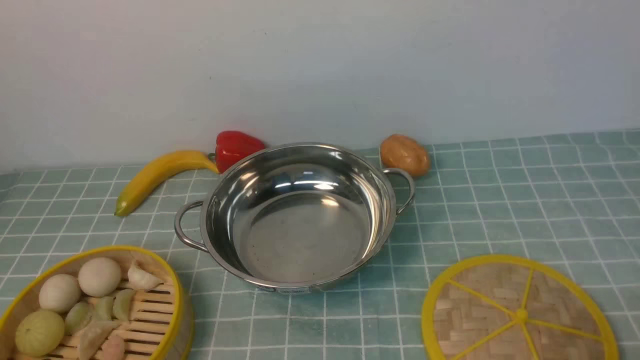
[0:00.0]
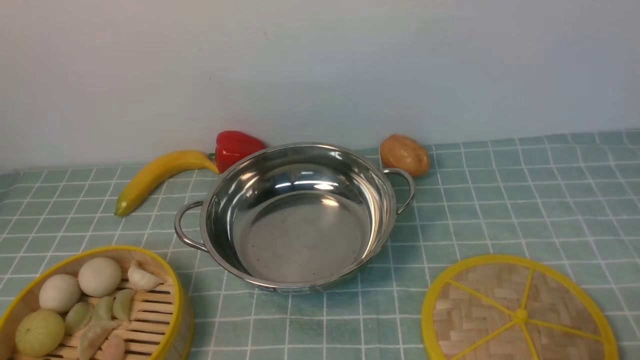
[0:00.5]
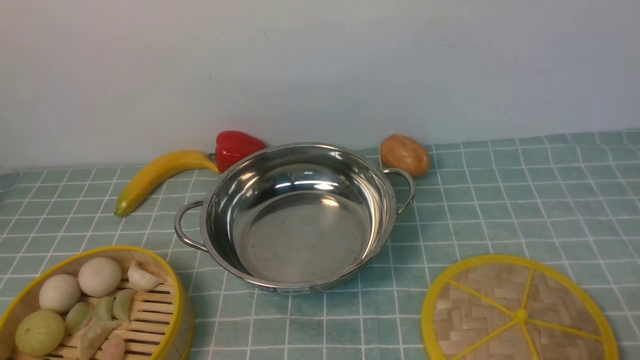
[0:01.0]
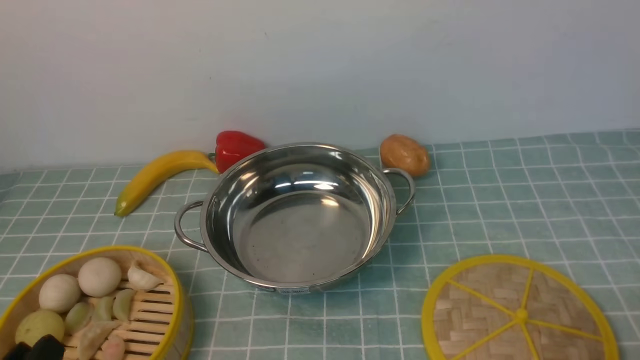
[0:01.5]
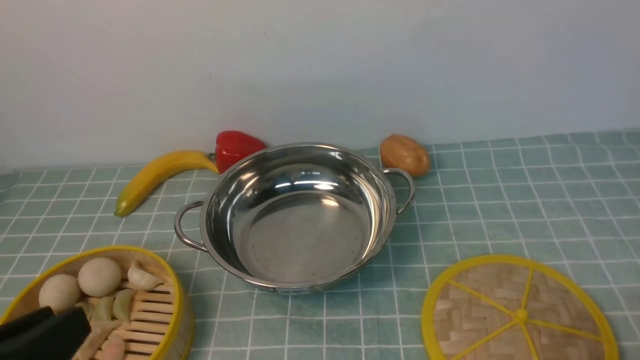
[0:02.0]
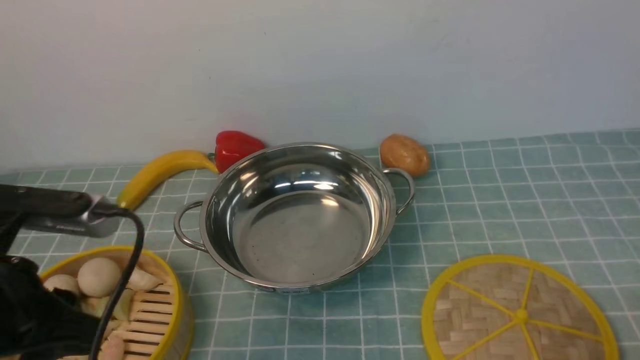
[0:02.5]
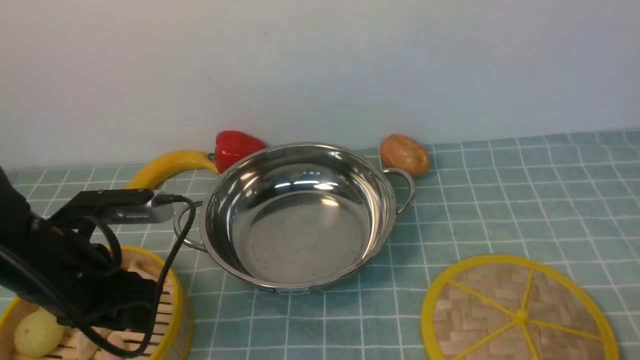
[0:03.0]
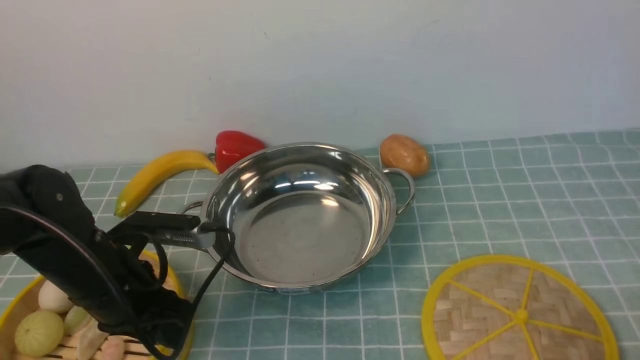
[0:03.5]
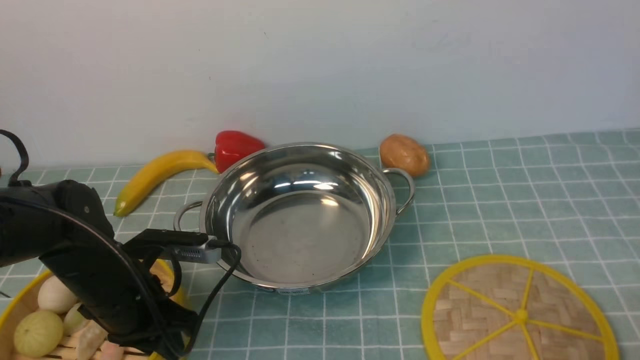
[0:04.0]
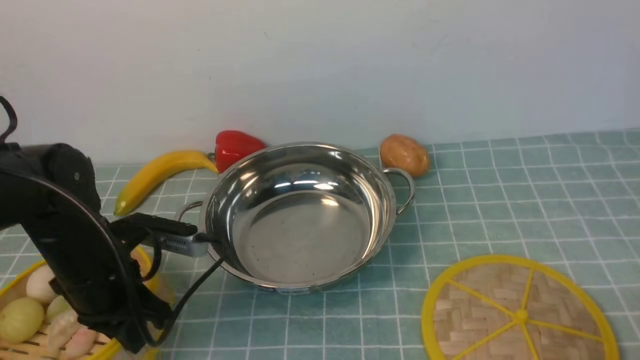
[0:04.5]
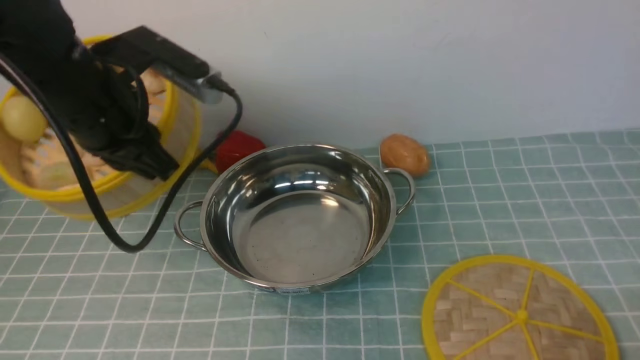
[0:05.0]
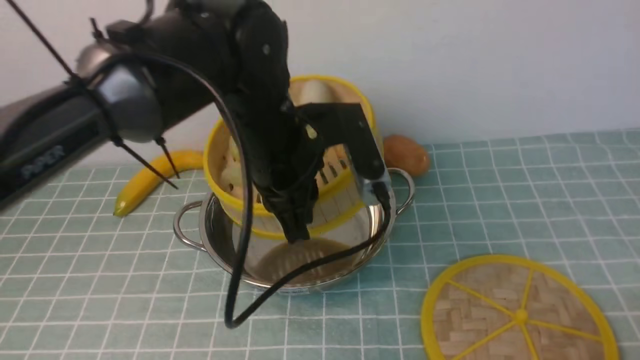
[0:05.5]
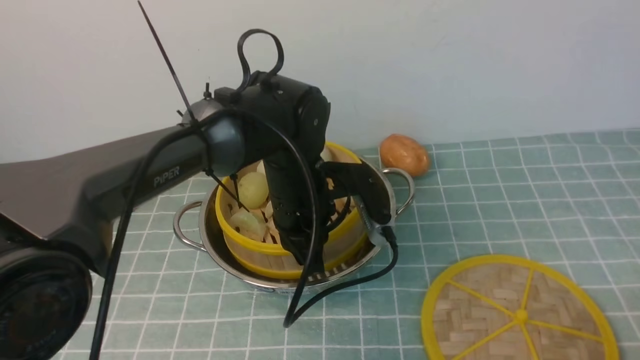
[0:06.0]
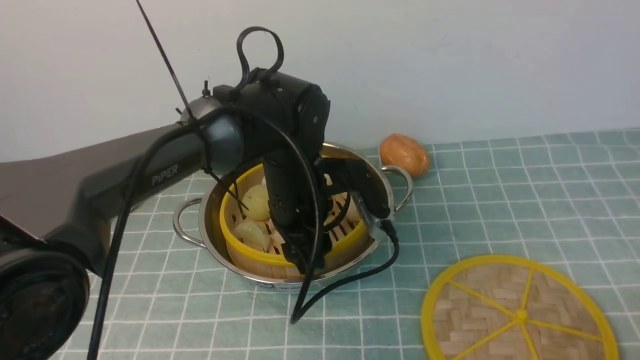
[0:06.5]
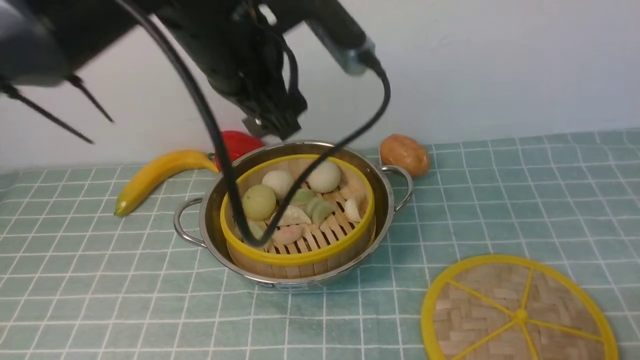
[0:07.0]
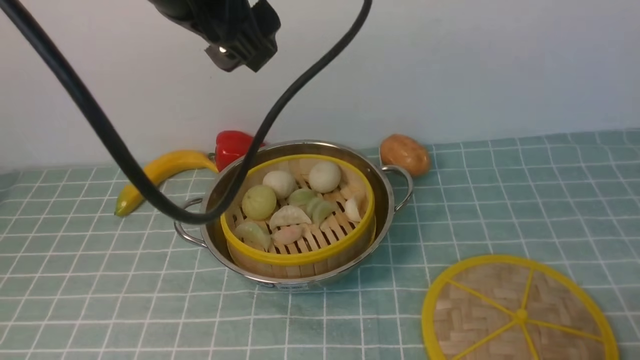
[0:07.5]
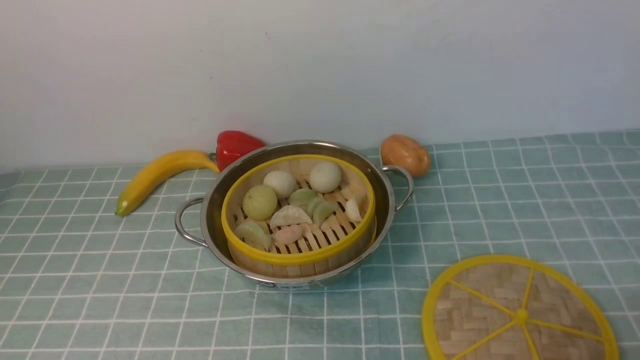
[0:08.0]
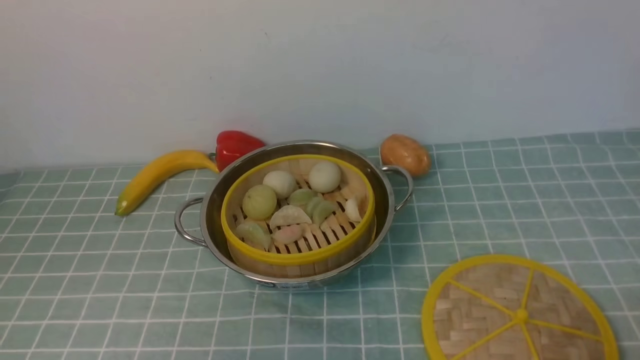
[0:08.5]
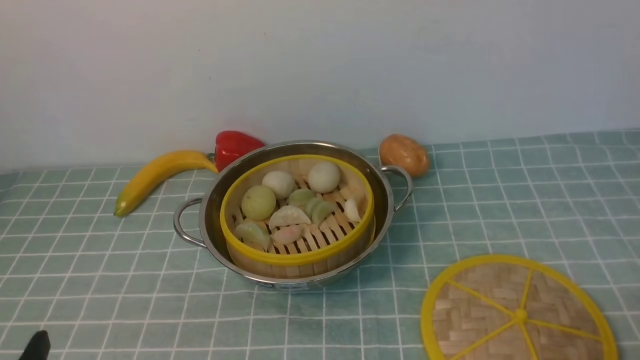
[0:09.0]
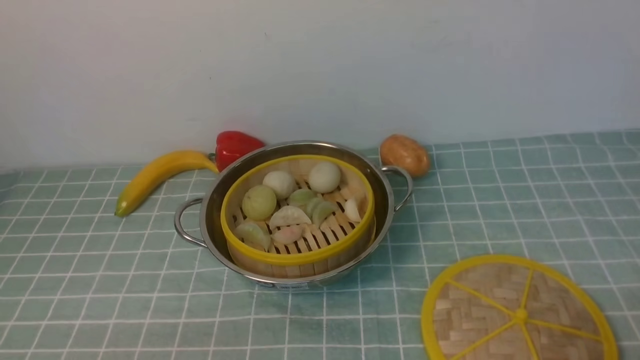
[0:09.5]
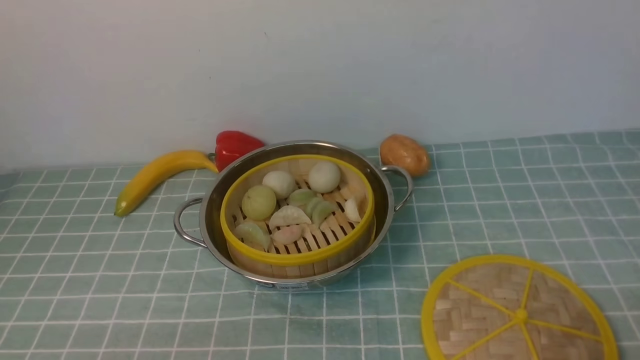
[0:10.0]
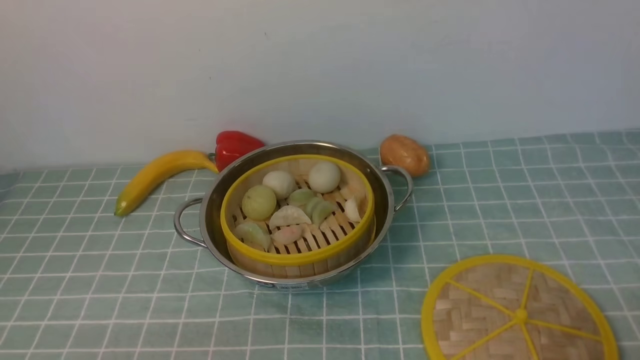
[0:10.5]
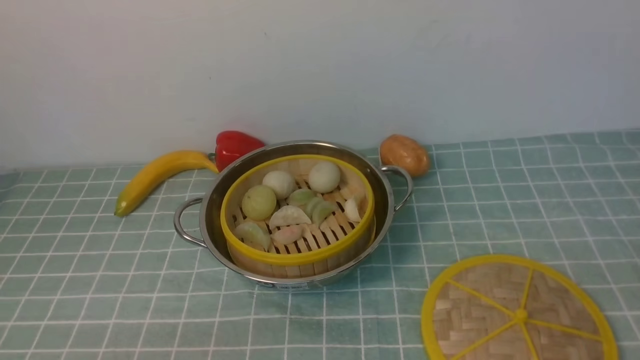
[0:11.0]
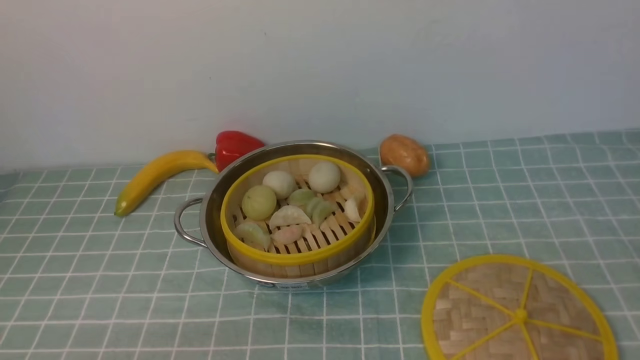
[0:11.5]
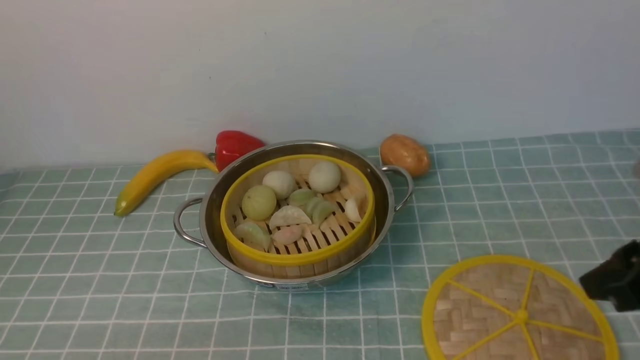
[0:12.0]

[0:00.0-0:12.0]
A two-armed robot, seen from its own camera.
Task of the whole recording: place the steamer in the pot on the blue tablecloth, and put the lid on the steamer.
Step, 0:00.0 to 0:04.5: use the left arm to lift the steamer closest to it.
Step, 0:05.0 to 0:06.5: use the left arm to put the steamer into the iron steamer pot in the middle.
0:00.0 to 0:02.0: The left gripper shifts approximately 10 cm upward.
0:02.0 to 0:04.0: The left gripper moves forward and downward, some 25 cm.
0:04.0 to 0:06.0: The left gripper goes approximately 20 cm to the right and forward.
0:06.0 to 0:08.0: The left gripper travels upward, backward and to the left by about 40 cm, and opens.
0:08.0 to 0:10.0: The left gripper heads downward, covering about 35 cm.
0:10.0 to 0:12.0: The right gripper moves forward and upward, some 20 cm.

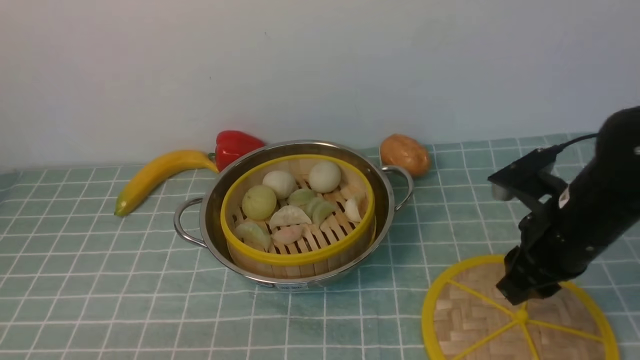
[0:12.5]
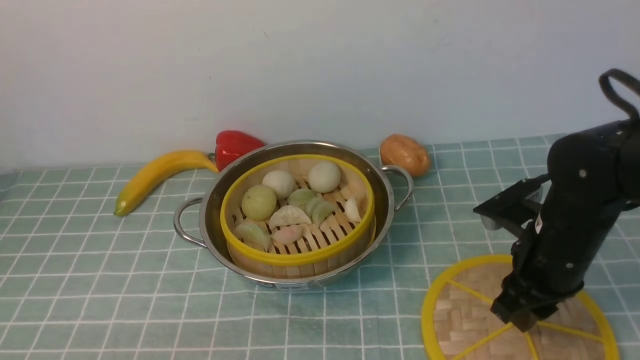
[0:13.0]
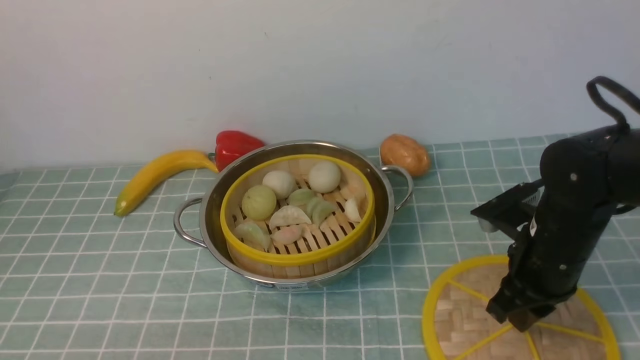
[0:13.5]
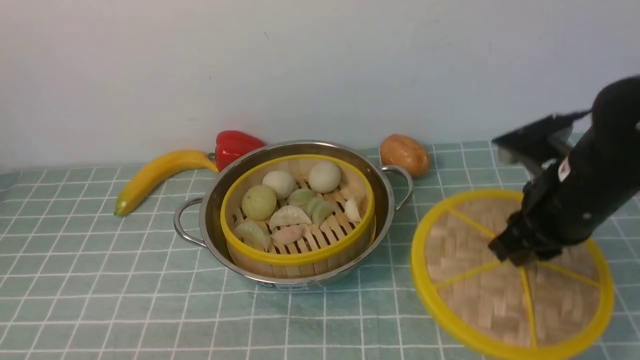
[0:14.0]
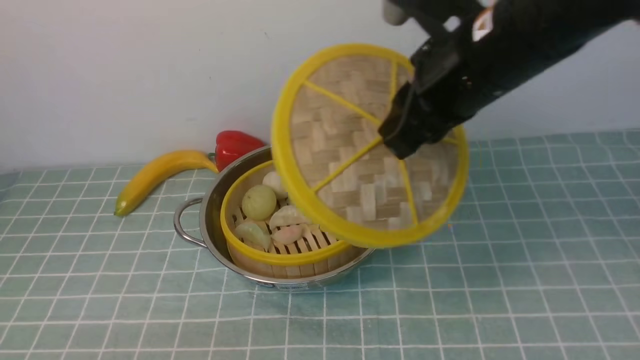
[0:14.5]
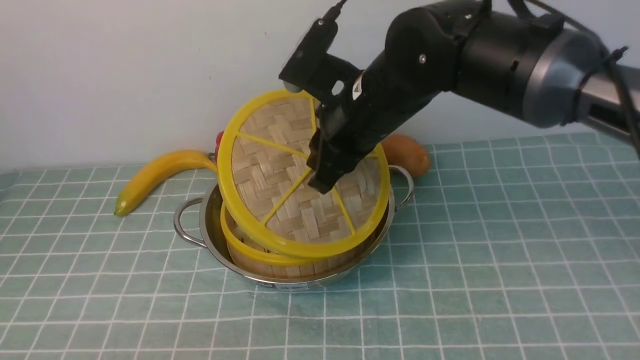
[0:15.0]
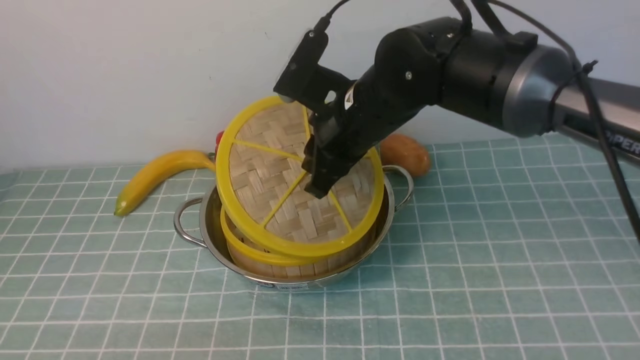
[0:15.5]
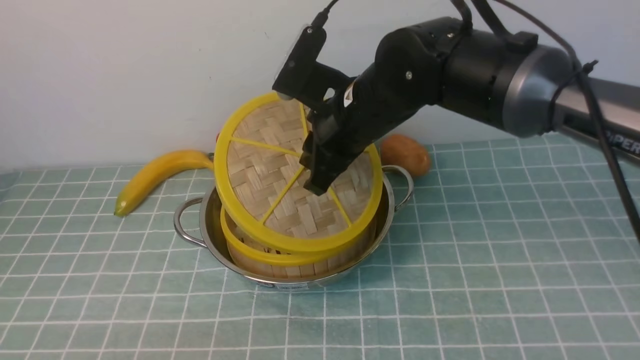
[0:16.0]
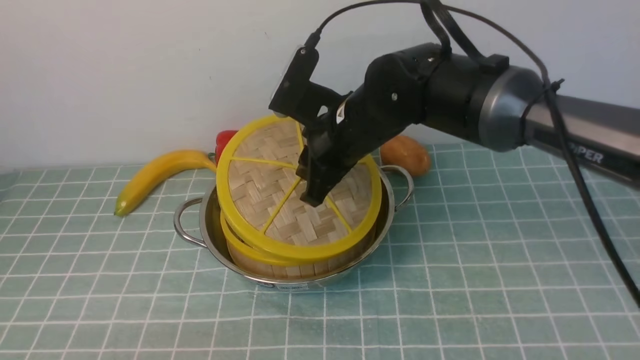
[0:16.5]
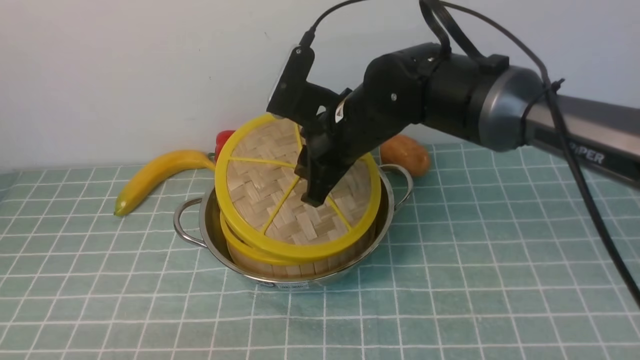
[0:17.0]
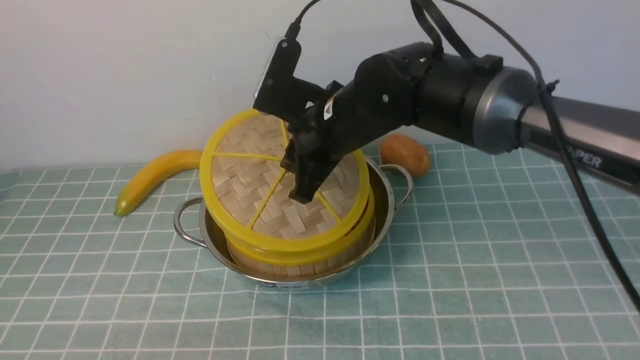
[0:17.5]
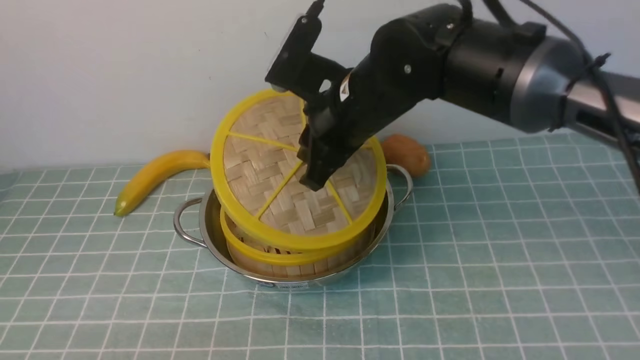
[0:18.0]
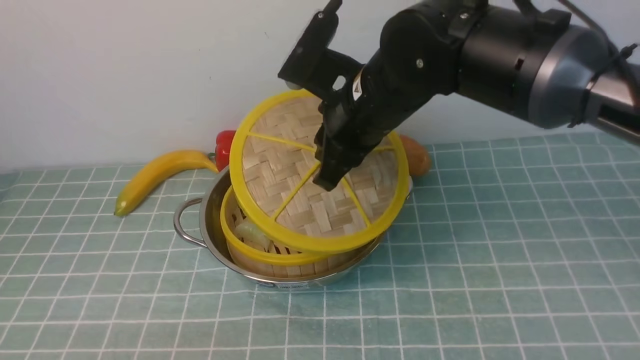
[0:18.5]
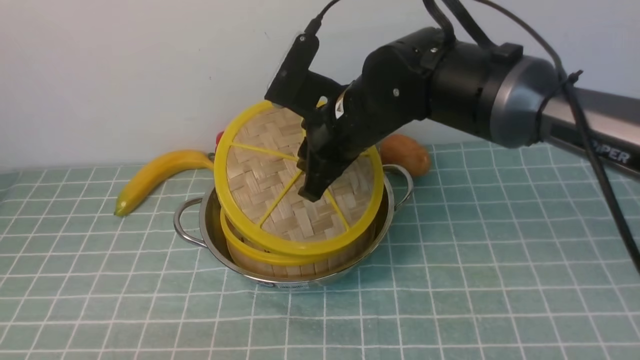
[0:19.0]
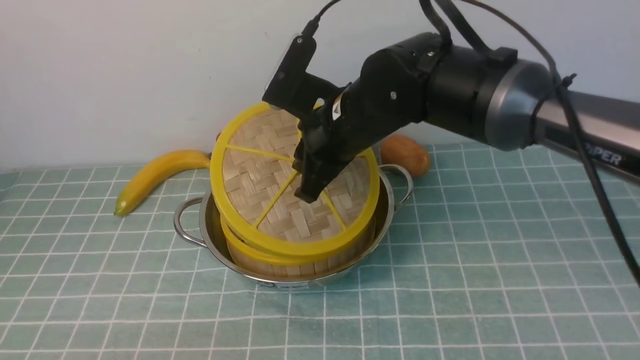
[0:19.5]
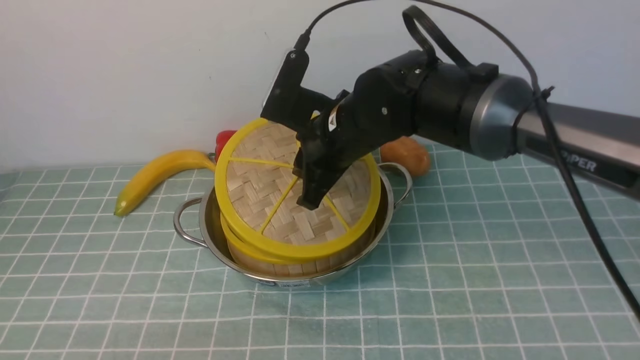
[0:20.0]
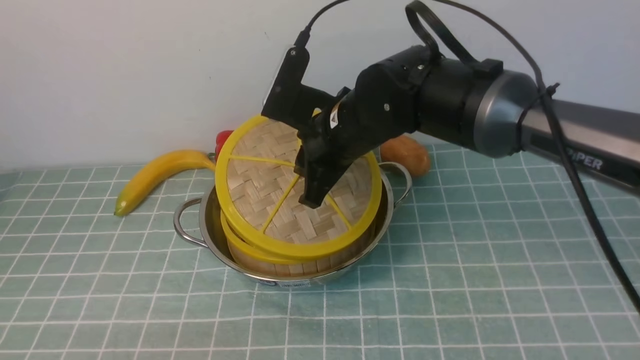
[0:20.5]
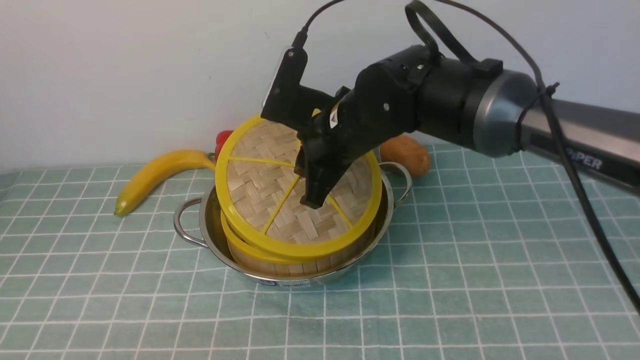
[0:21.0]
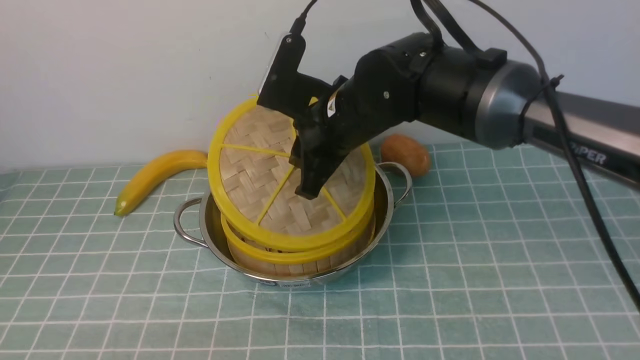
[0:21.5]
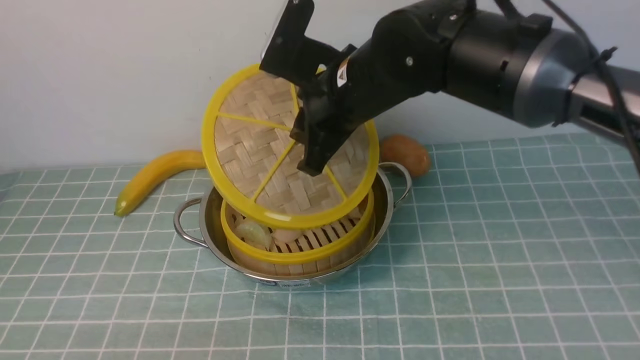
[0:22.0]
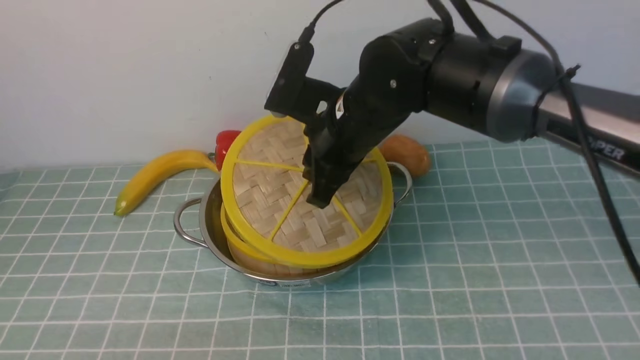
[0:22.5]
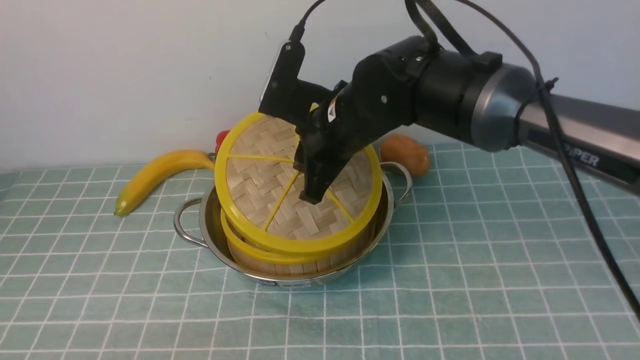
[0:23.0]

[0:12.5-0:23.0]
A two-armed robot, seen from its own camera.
Task of the whole recording: place the steamer in the pot on the blue tablecloth, and put the lid on the steamer.
0:12.5 to 0:14.5: The right gripper moves upward and to the left, about 20 cm.
0:14.5 to 0:16.5: The right gripper shifts some 15 cm downward, to the left and forward.
0:16.5 to 0:23.0: The grippers move only a little.
